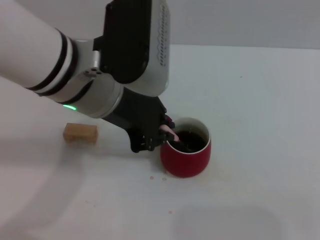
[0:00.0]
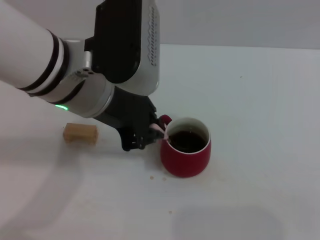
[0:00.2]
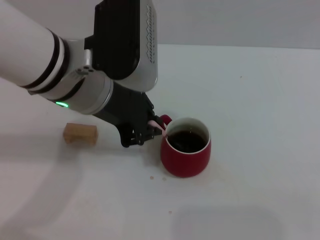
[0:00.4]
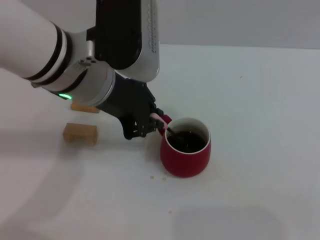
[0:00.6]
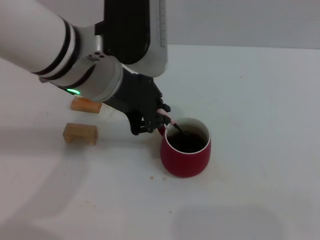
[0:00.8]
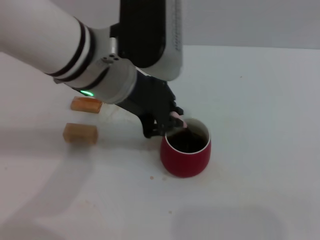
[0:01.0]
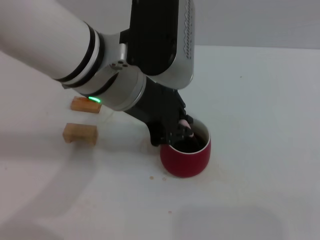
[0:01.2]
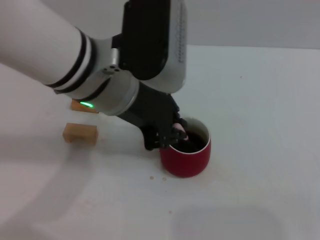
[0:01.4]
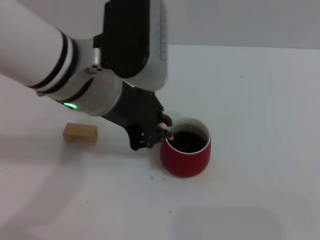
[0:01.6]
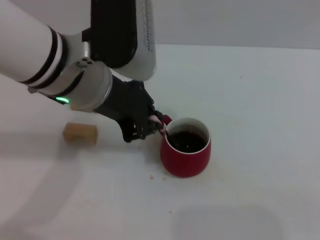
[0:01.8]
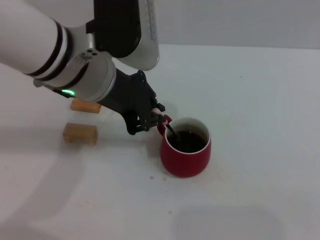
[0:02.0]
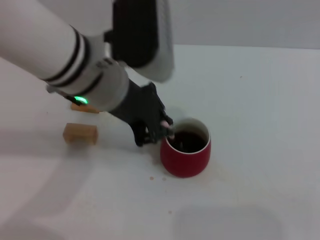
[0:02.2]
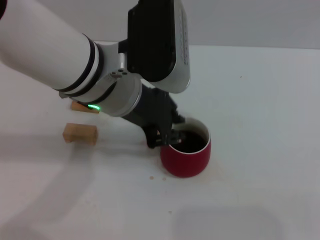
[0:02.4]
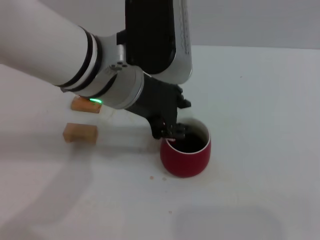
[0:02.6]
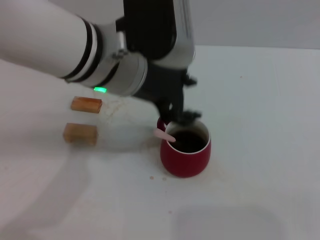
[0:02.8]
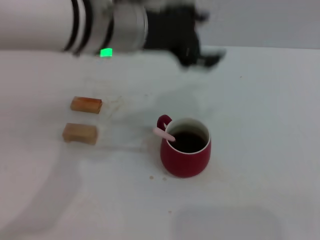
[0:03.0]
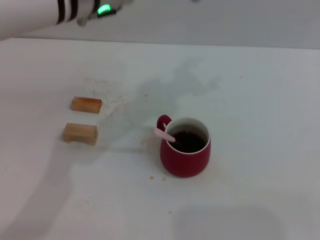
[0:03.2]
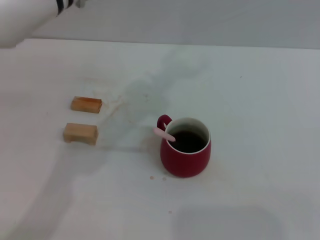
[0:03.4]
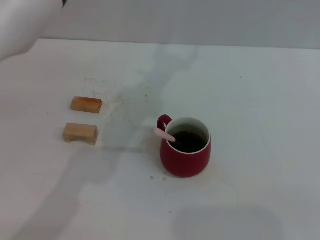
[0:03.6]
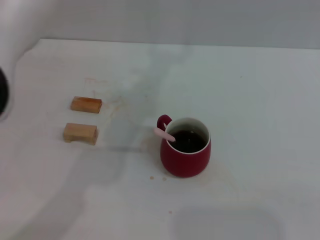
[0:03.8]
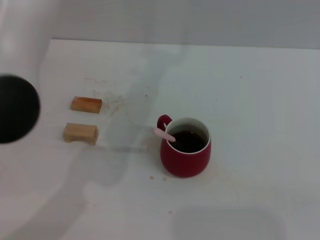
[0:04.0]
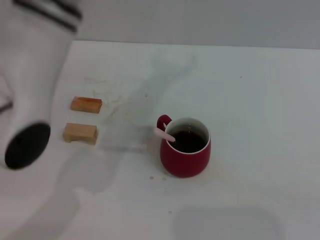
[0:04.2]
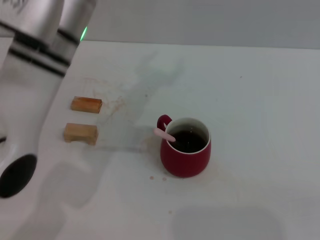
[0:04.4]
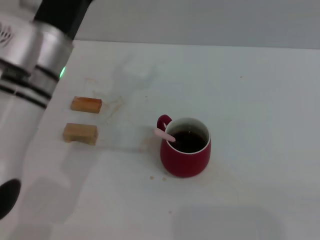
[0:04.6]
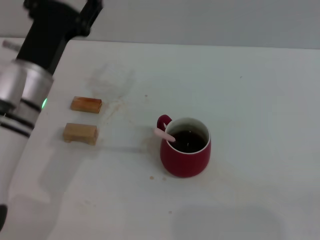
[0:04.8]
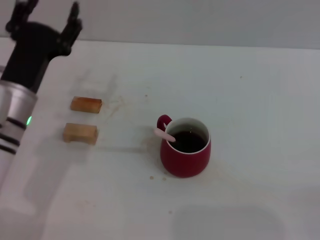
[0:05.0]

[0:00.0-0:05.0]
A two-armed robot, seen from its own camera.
Task of the whole recording: Move the red cup to the center, lift the pink spoon, stir it three times in the cup, and put the spoon into the cup.
Step, 0:00.0 to 0:02.4: Stir the coffee with left gripper.
0:00.0 to 0:01.6: The grippers stay close to where they were, moving slightly.
0:01.6 to 0:03.4: The left gripper shifts some 5 cm upward, and opens up.
0:03.4 to 0:05.0: The left gripper goes about 20 cm downward and to the left.
